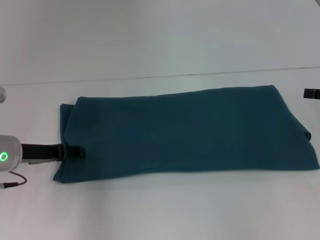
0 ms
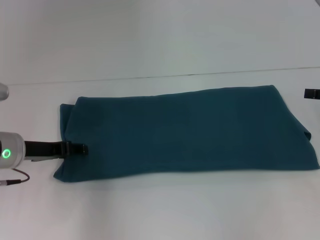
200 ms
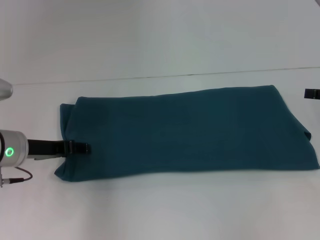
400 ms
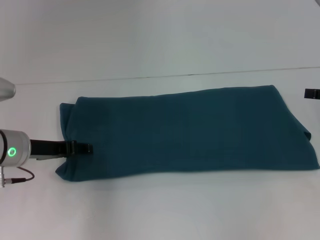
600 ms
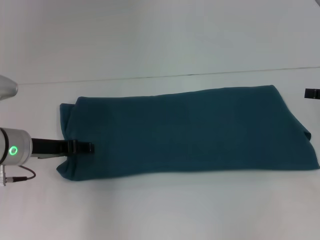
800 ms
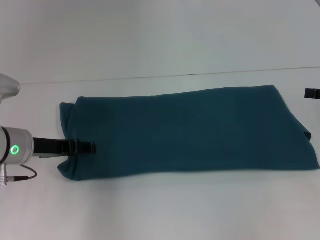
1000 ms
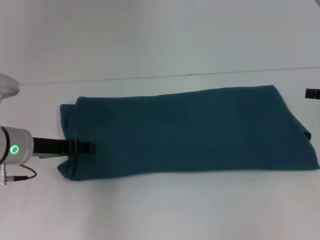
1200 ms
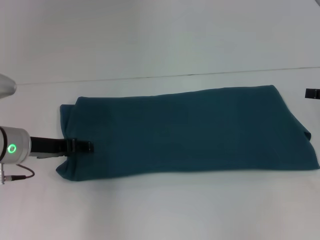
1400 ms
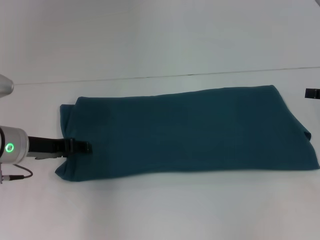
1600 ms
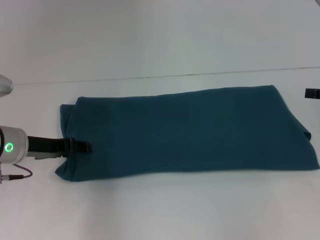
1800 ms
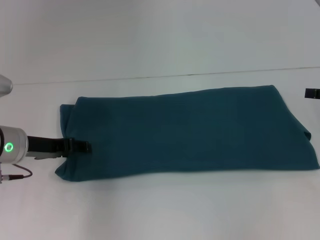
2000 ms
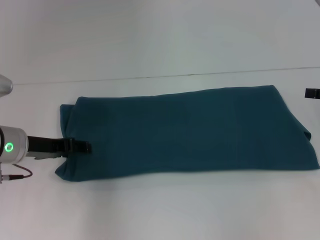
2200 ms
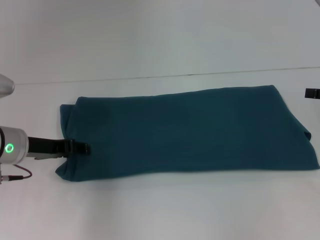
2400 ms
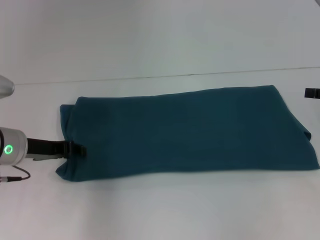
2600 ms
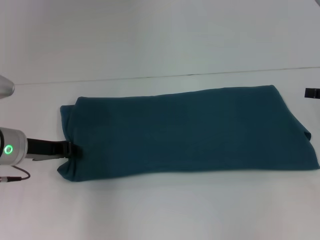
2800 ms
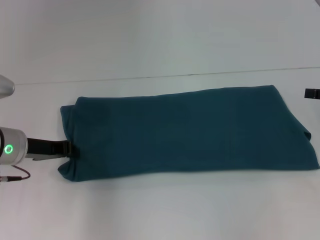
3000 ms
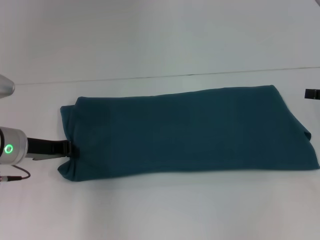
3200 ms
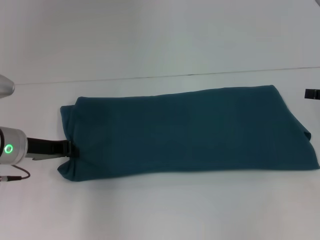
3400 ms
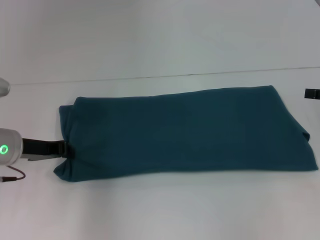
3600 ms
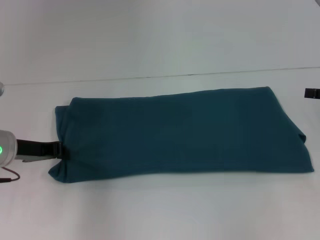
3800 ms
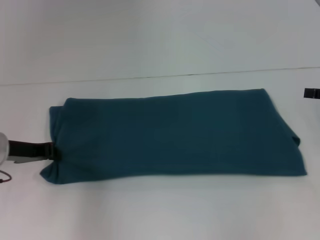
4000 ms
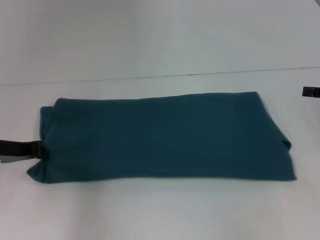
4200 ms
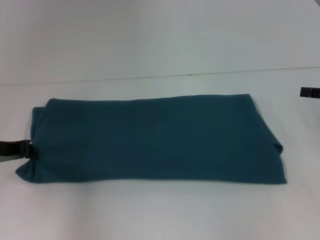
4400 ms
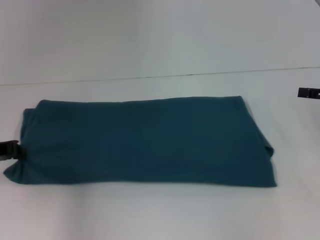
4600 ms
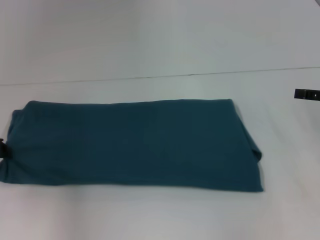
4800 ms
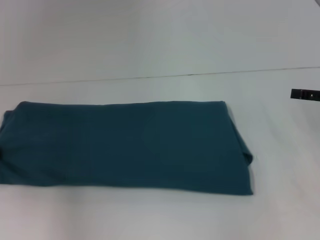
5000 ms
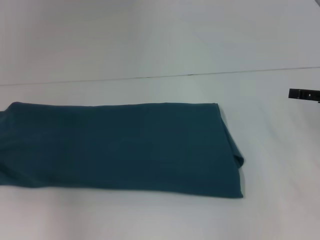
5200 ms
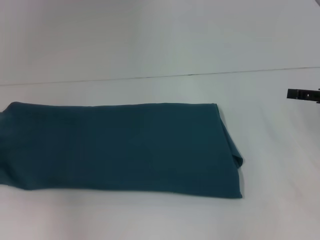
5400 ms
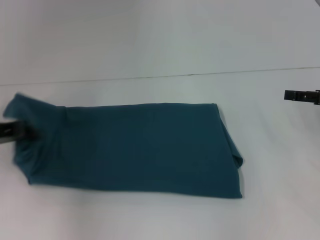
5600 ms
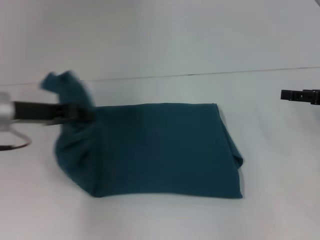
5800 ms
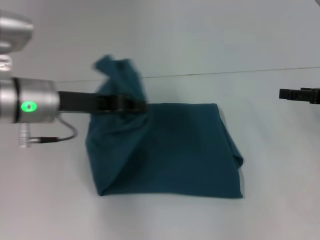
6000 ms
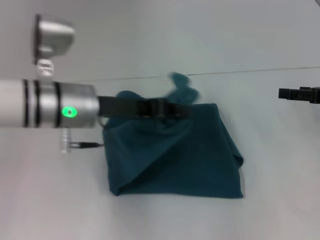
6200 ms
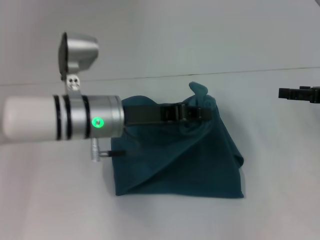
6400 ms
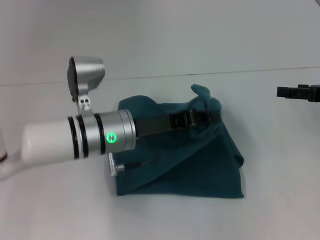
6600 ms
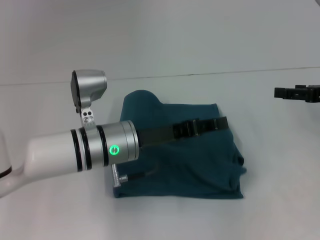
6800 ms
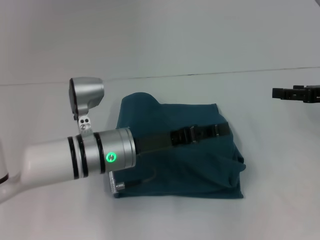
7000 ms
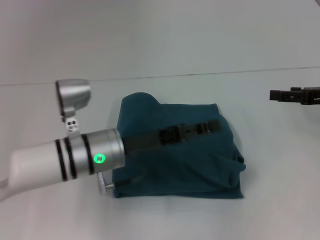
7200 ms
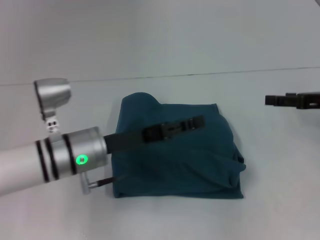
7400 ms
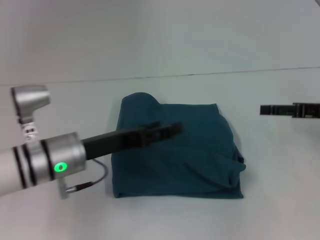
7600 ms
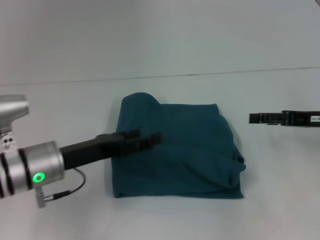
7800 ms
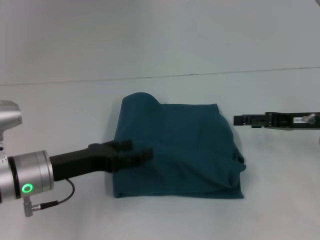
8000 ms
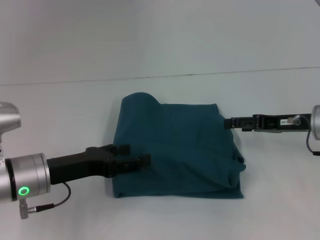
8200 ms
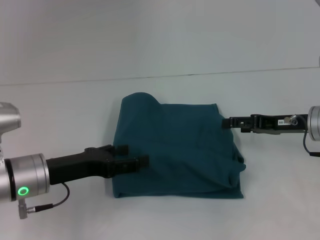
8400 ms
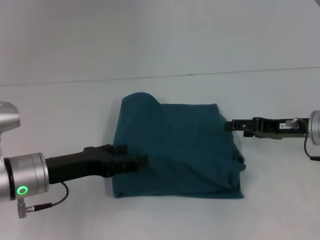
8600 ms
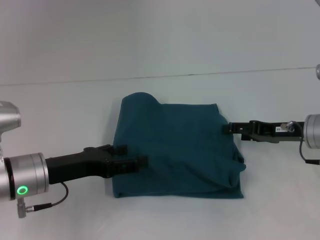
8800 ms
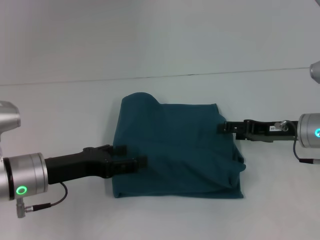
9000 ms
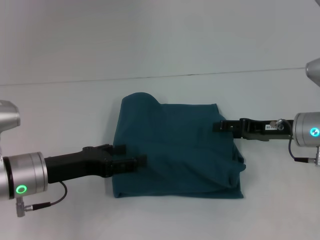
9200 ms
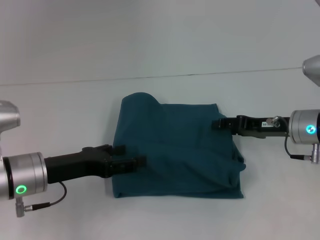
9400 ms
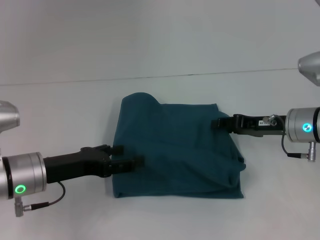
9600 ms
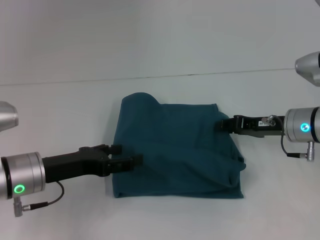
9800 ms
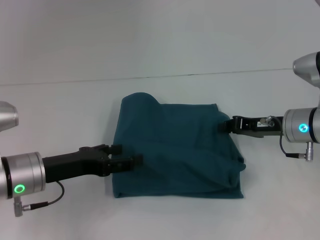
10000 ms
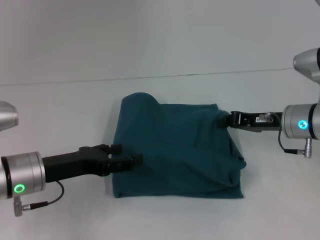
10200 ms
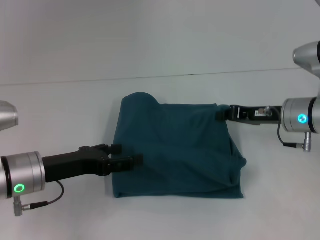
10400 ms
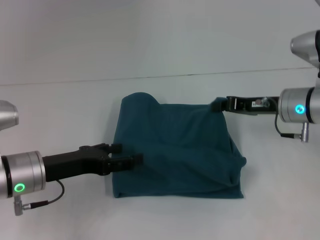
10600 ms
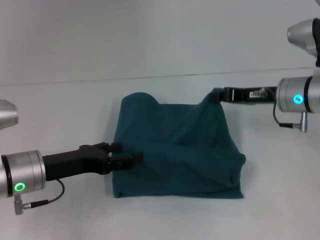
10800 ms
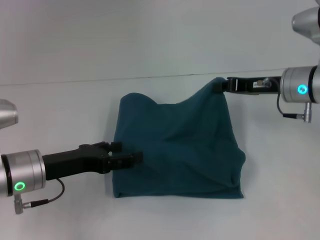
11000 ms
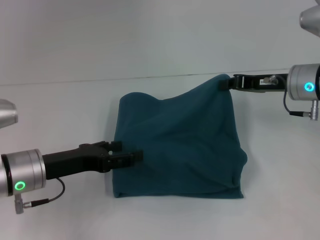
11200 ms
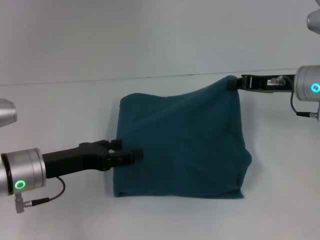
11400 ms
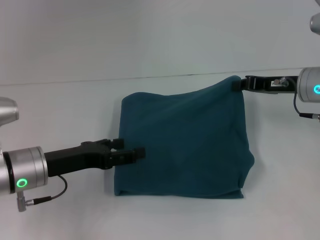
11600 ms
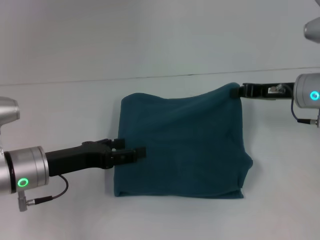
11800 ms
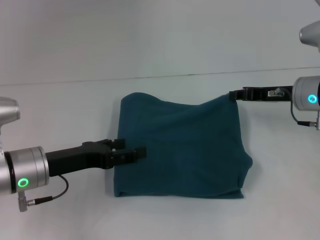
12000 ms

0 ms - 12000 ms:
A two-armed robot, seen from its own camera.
Step, 0 ms - 6800 ms: Fold the clothes to the left.
0 ms - 1600 ms: The grippers stay close to where they were, moving slightly.
1600 ms - 3000 ms: The left gripper closes.
3000 ms - 4400 ms: The left gripper heads to the left, covering about 5 cm.
4400 ms - 6000 ms: The left gripper is displaced to the right and upward by approximately 15 cm.
6000 ms - 7600 ms: The left gripper shifts about 10 cm downward, reaches approximately 10 cm to the right, then returns, and opens.
7600 ms - 9000 ms: The two grippers go some 5 cm to the left.
9000 ms - 10400 ms: The right gripper closes up.
10400 ms - 12000 ms: The grippers move only a little.

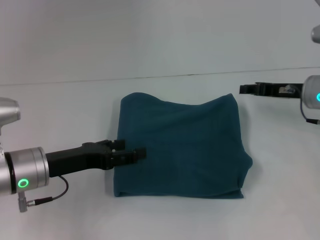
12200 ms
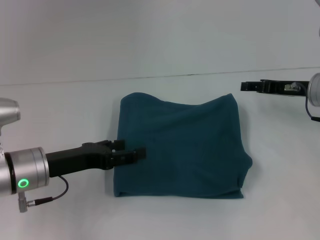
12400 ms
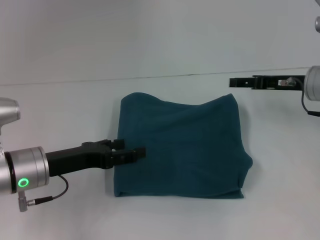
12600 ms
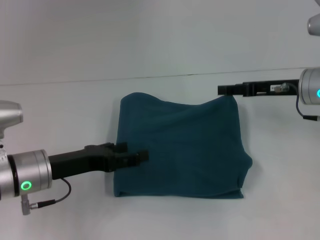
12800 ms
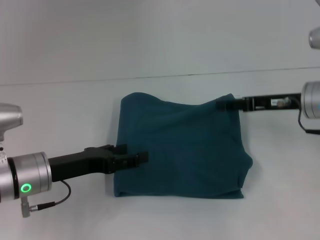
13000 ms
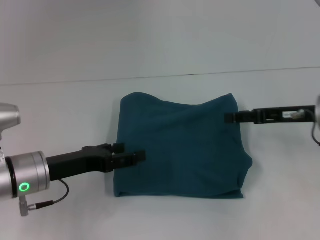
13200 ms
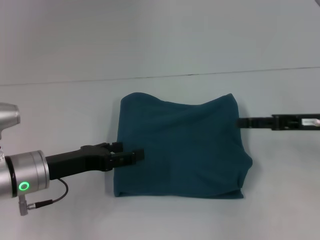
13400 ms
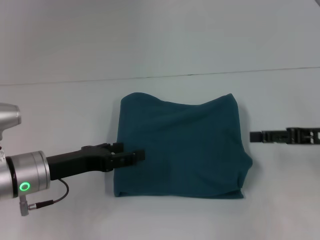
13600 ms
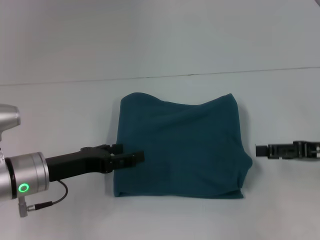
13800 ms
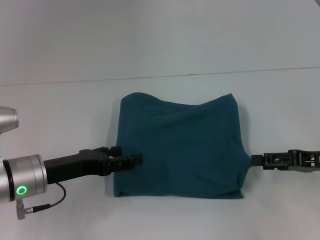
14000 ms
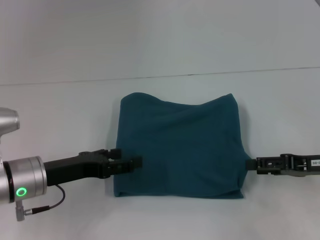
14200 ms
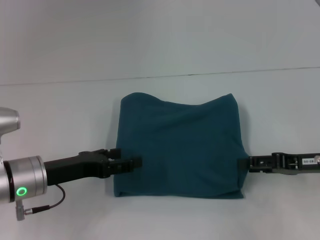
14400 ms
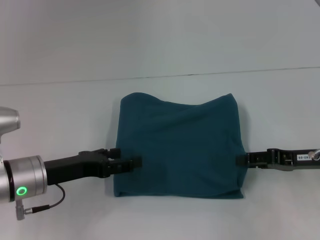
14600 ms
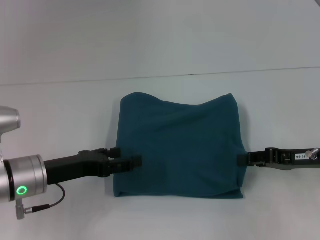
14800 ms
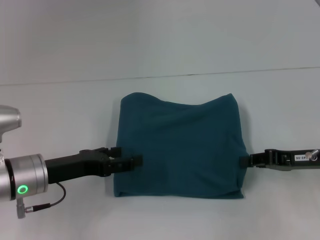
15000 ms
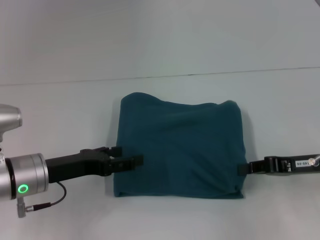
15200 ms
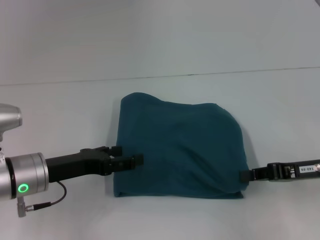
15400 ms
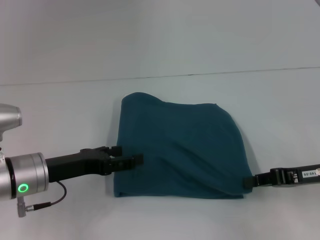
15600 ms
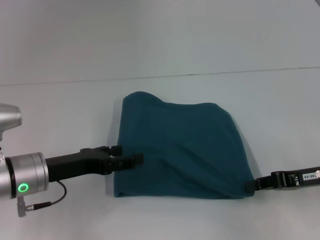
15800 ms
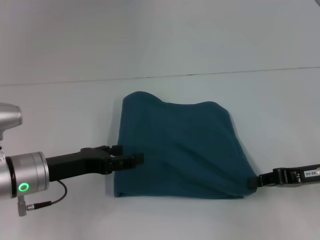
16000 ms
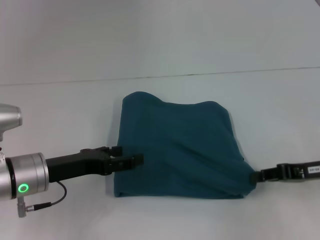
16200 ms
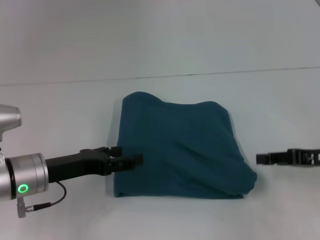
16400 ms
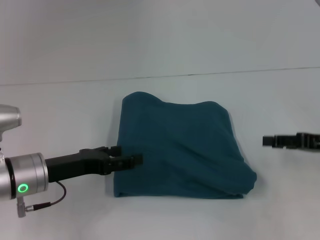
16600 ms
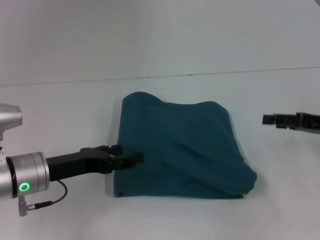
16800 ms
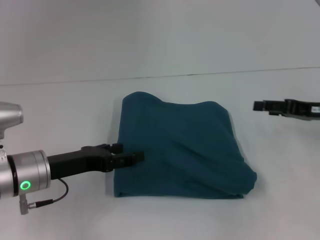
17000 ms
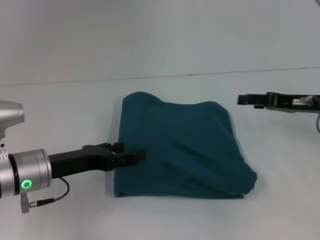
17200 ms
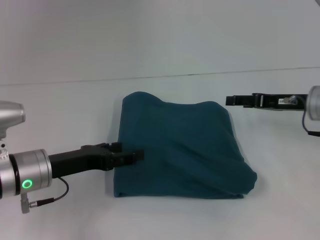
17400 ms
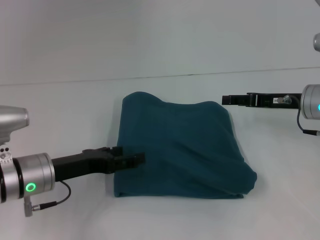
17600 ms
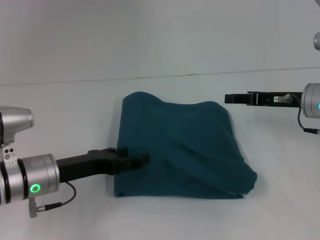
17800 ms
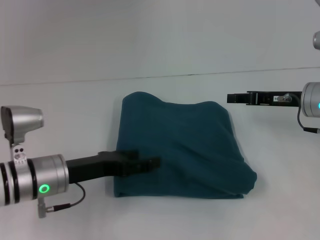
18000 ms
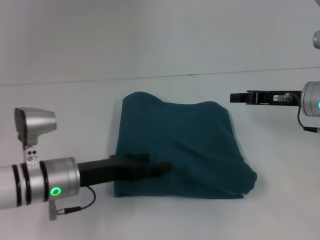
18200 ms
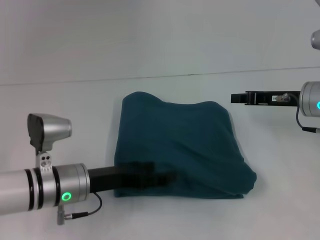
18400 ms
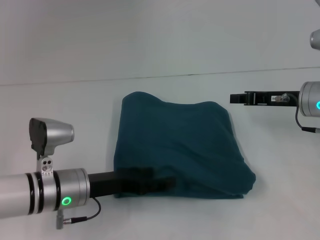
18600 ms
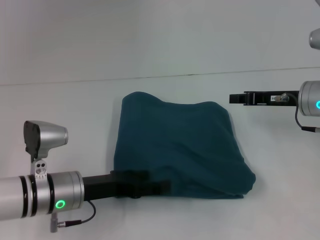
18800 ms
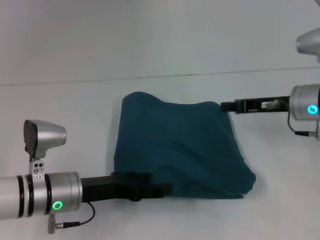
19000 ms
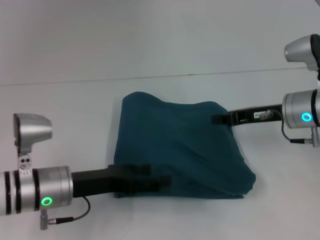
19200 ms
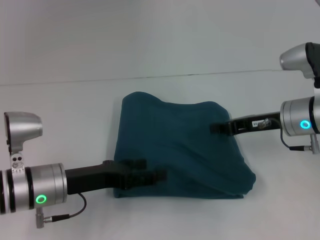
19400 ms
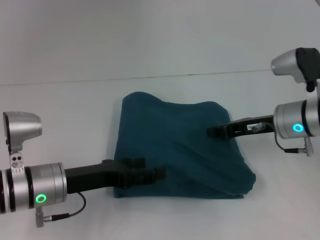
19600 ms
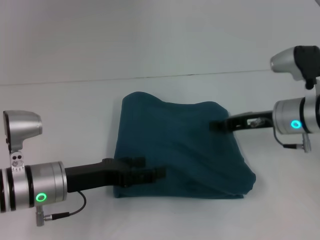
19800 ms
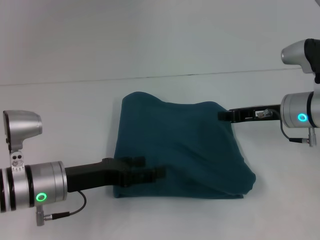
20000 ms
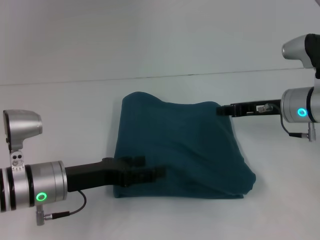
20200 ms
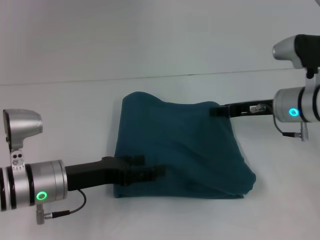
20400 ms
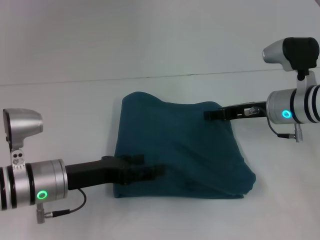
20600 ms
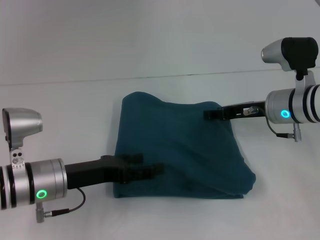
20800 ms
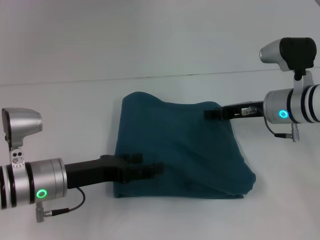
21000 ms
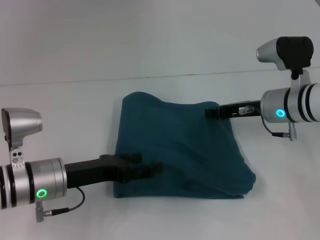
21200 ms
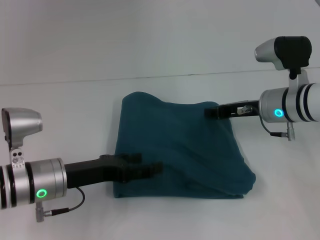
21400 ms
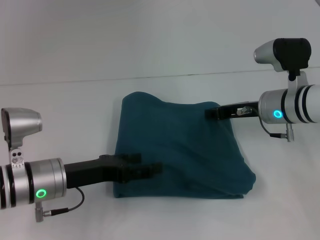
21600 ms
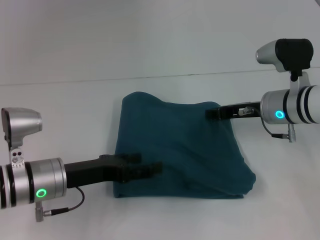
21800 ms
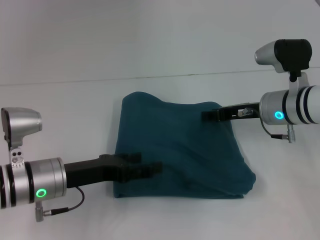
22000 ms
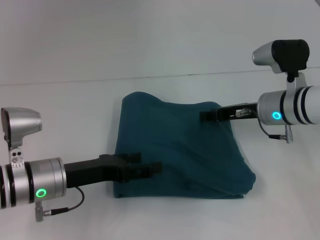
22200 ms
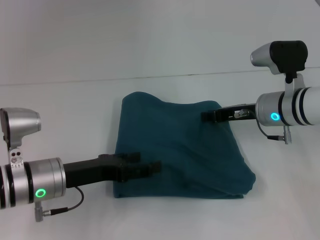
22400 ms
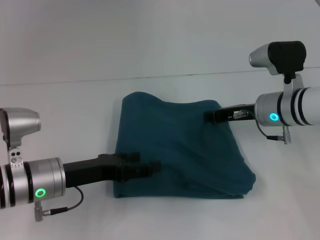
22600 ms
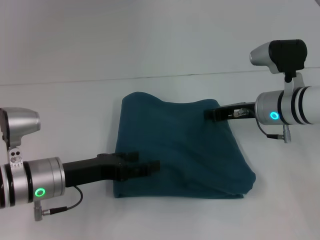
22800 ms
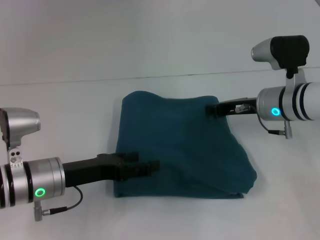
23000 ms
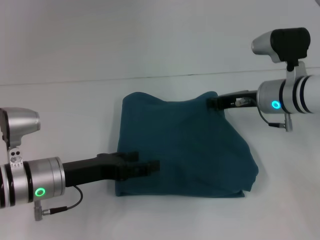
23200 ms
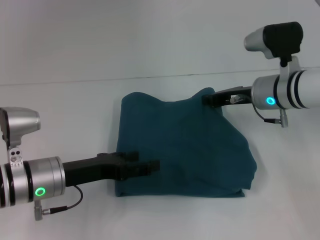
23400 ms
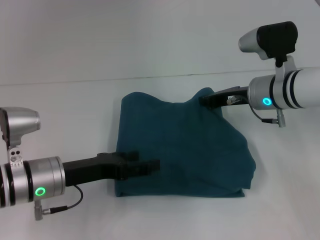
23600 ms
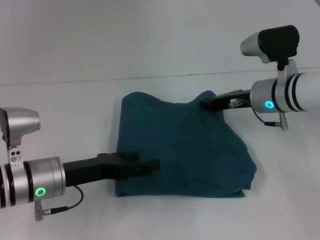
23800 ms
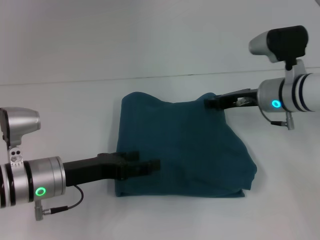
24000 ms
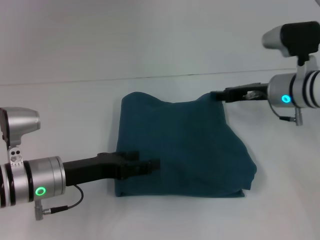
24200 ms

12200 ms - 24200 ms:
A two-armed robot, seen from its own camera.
12200 ms - 13800 ms: The right gripper shifts about 10 cm backward and to the right, and opens.
13800 ms - 15200 ms: The right gripper closes.
15200 ms - 16600 ms: The right gripper opens its fingers.
16600 ms - 18200 ms: The right gripper is displaced forward and to the left by some 10 cm, and opens and closes again.
18200 ms - 19800 ms: The right gripper closes its fingers.
19800 ms - 21200 ms: The right gripper opens its fingers.
21200 ms - 22600 ms: Both grippers stay about where they are.
22600 ms - 24200 ms: The grippers move only a little.
